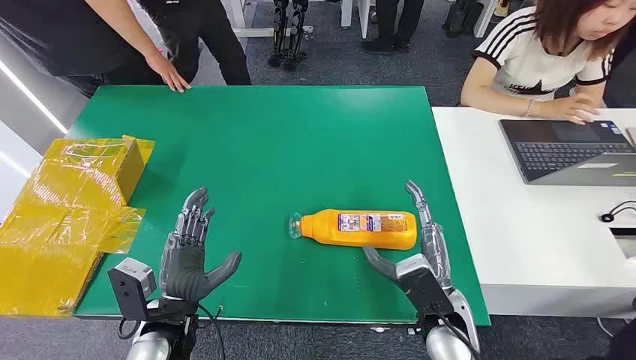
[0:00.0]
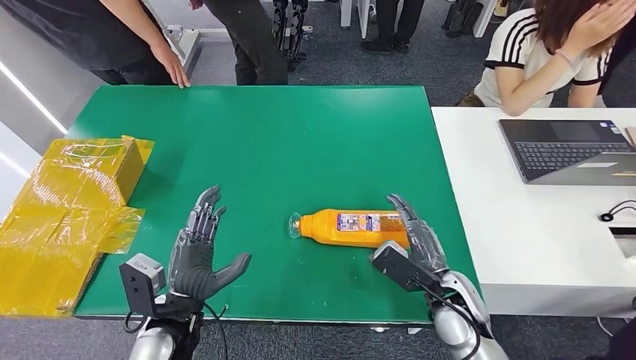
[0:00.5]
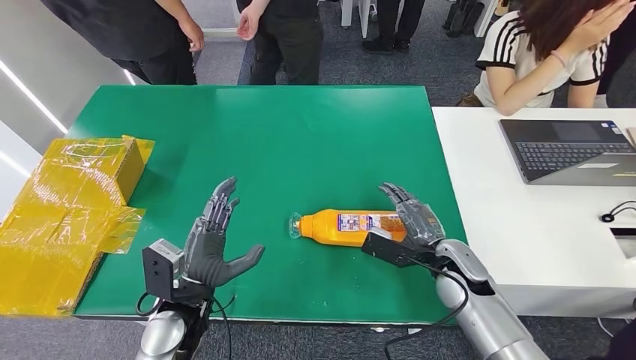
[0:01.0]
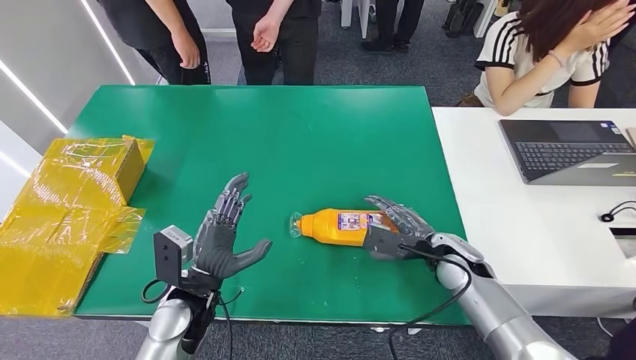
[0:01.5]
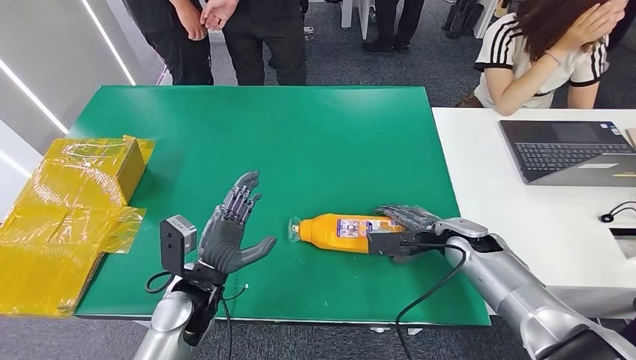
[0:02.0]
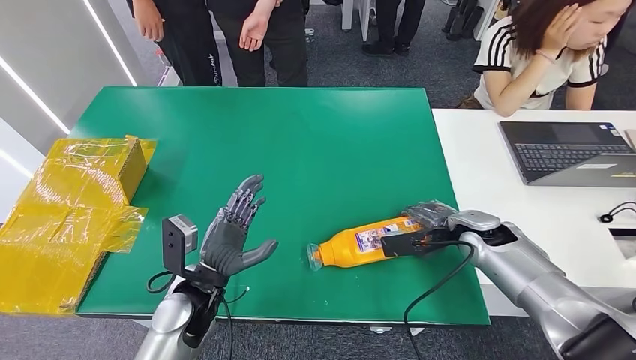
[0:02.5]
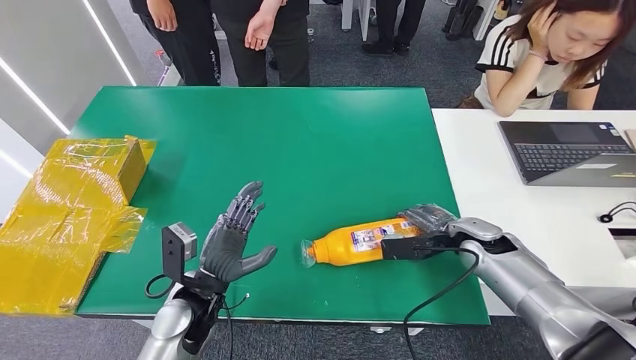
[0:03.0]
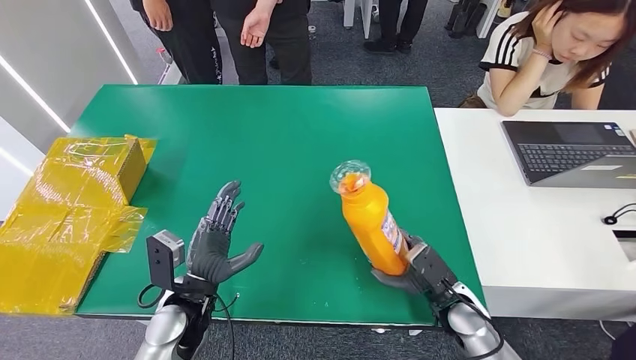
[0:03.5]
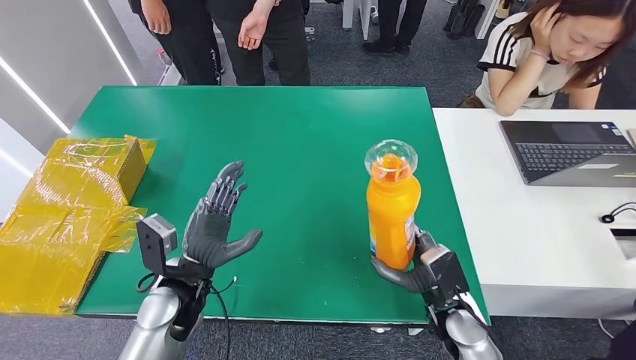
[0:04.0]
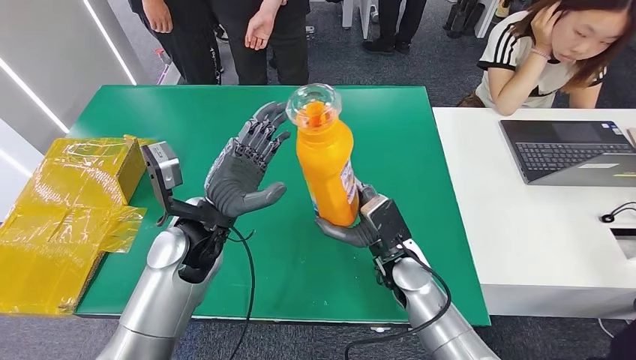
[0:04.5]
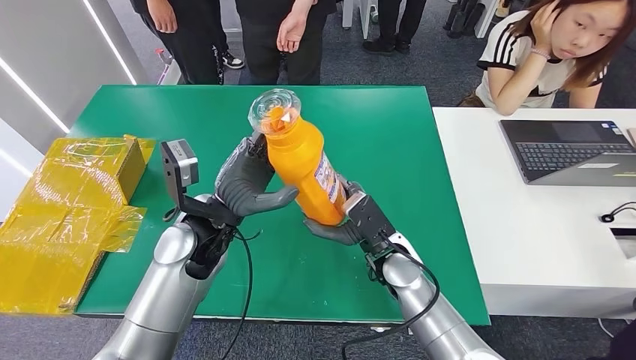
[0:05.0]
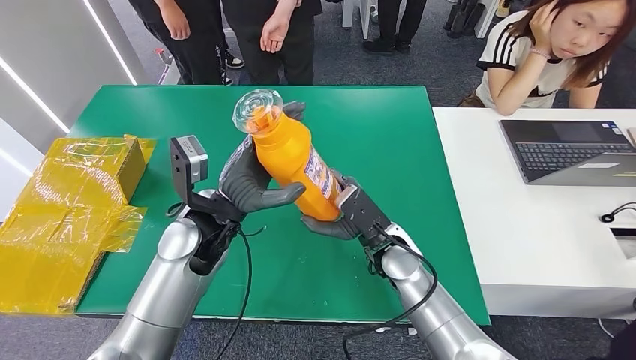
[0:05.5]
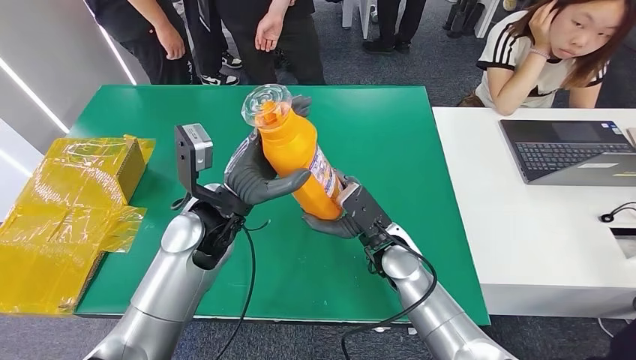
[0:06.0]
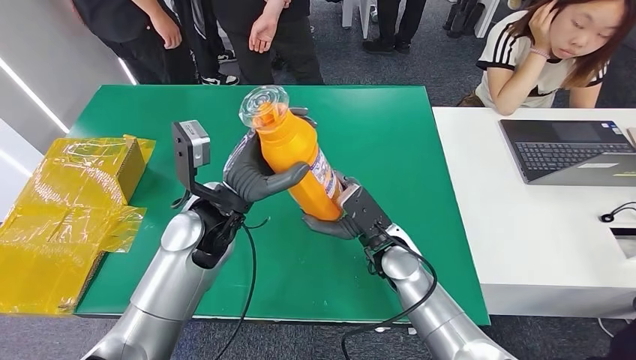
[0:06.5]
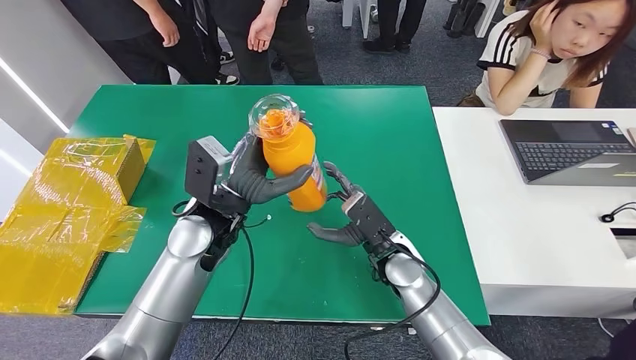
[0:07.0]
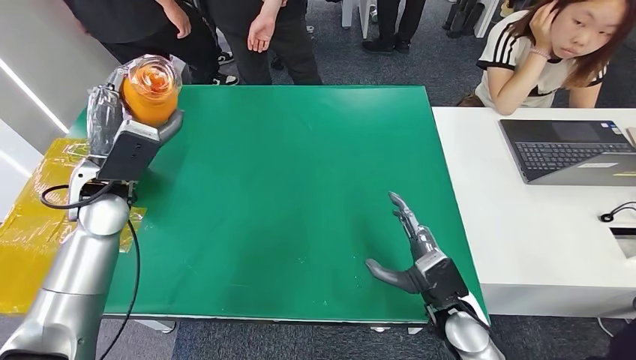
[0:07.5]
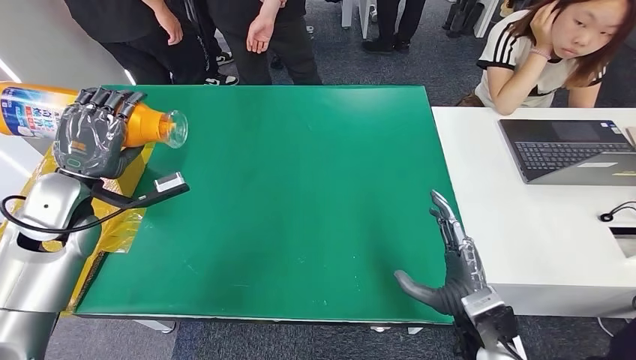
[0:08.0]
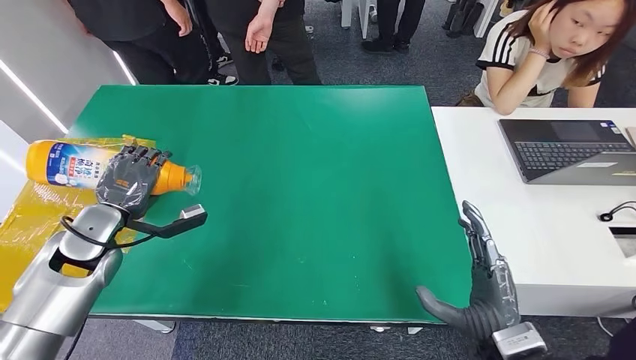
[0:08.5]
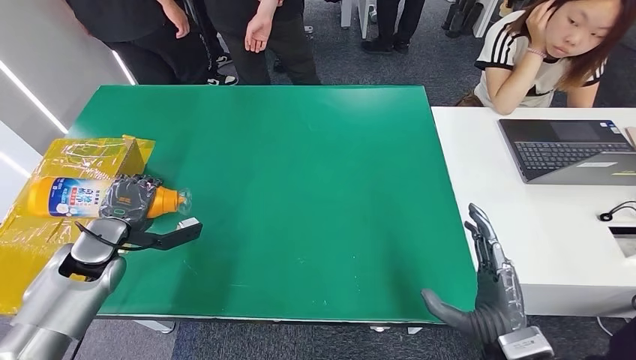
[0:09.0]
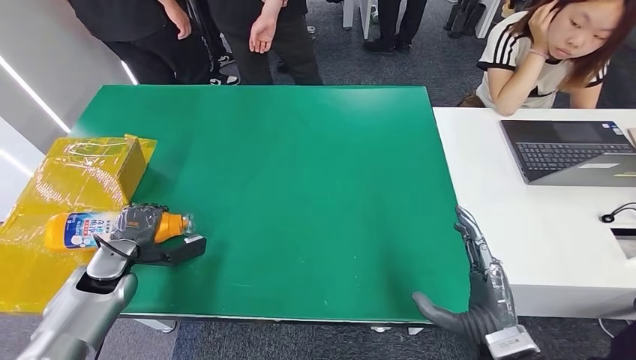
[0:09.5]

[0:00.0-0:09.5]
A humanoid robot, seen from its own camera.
Step, 0:00.0 to 0:05.0: Pick up the bottle from the table.
0:07.5 to 0:09.5: The left hand heads downward, covering some 20 cm. Meanwhile the right hand travels backward by approximately 10 cm.

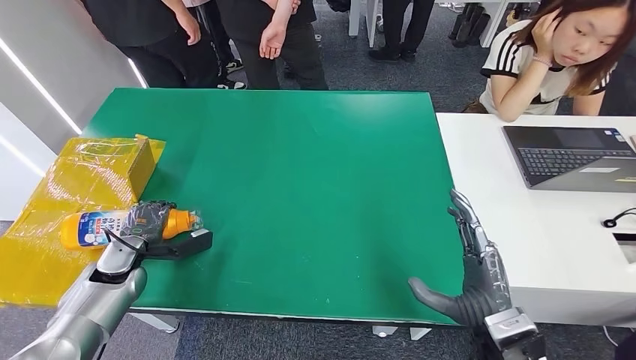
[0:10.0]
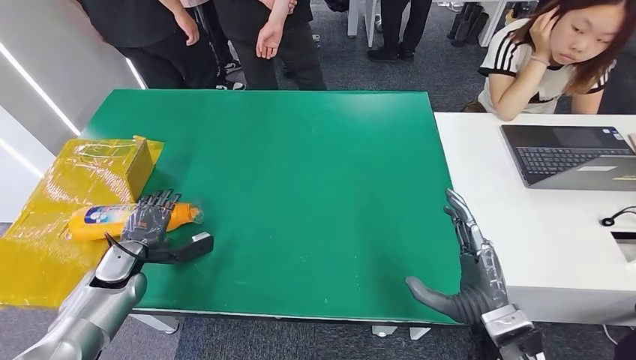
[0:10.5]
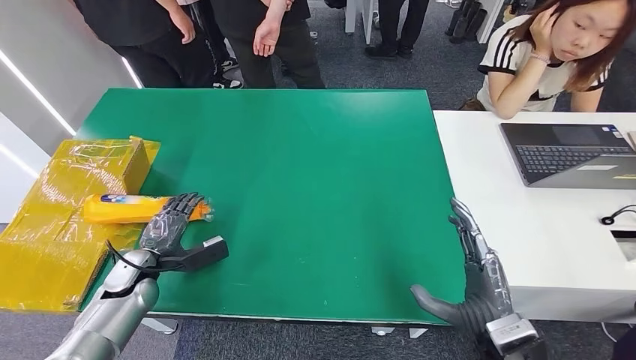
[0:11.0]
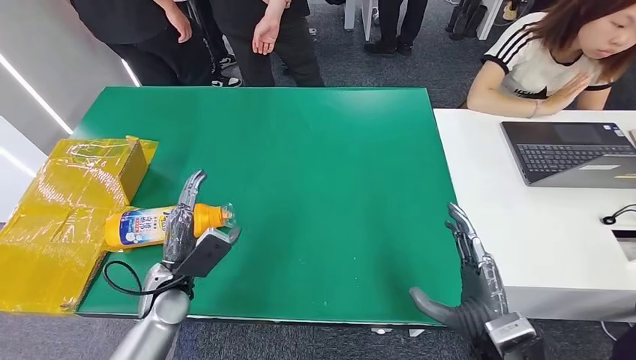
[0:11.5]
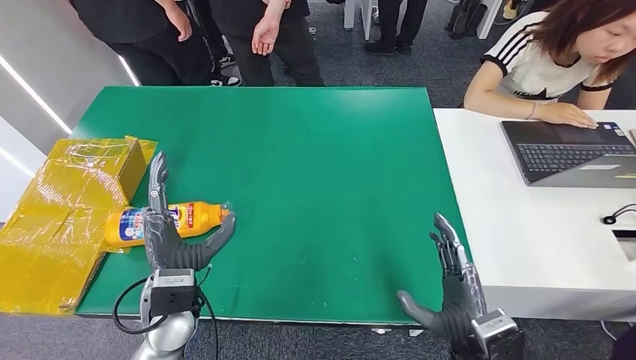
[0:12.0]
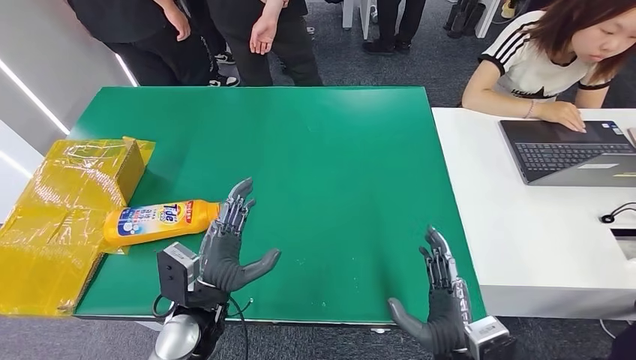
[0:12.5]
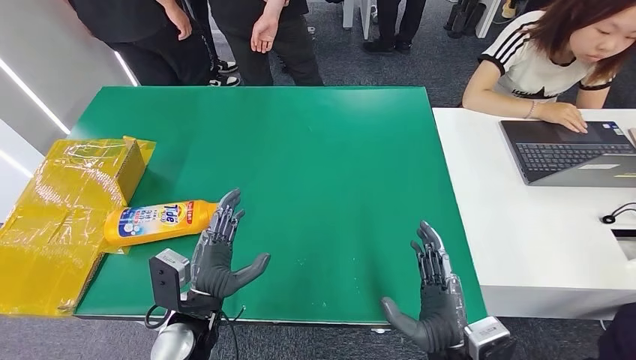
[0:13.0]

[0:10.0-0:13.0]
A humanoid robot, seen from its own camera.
Step, 0:10.0 to 0:13.0: Turn the bottle to the front side.
0:11.5 to 0:13.0: The right hand moves to the left, approximately 5 cm. Meanwhile the left hand shifts approximately 10 cm to the right and backward.

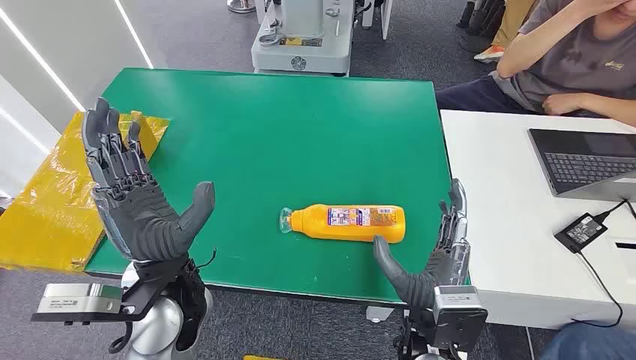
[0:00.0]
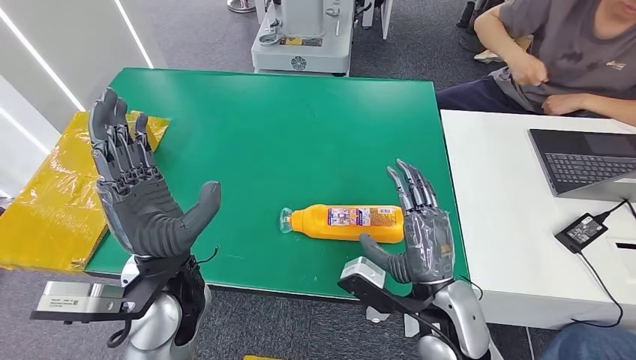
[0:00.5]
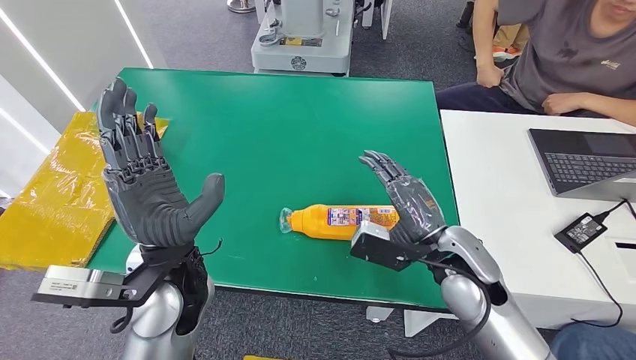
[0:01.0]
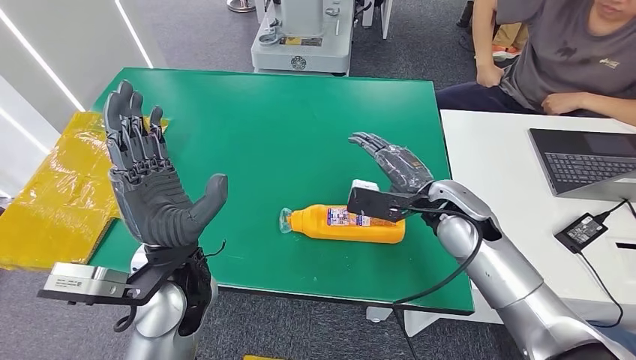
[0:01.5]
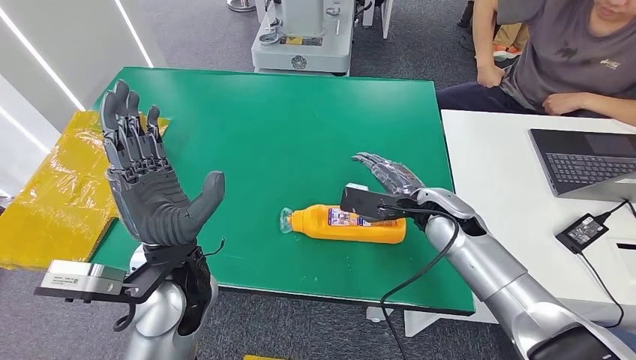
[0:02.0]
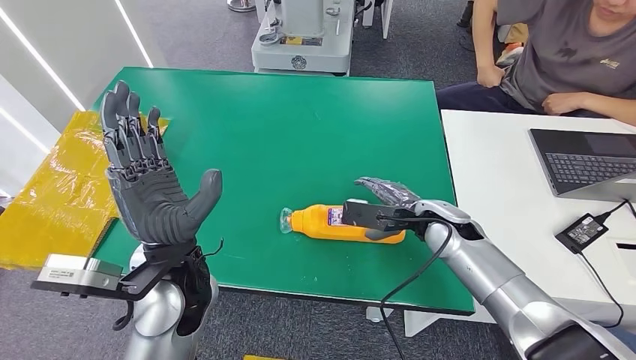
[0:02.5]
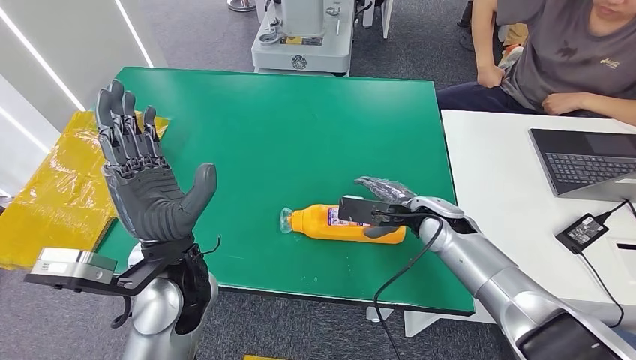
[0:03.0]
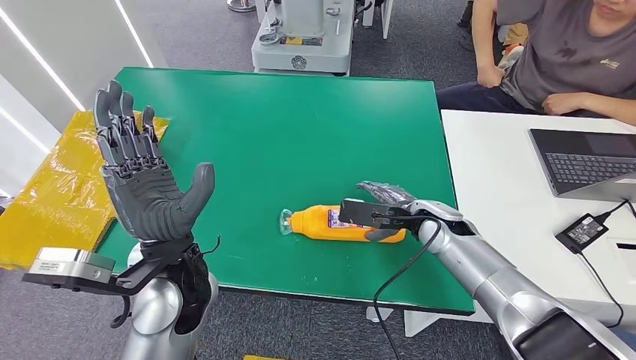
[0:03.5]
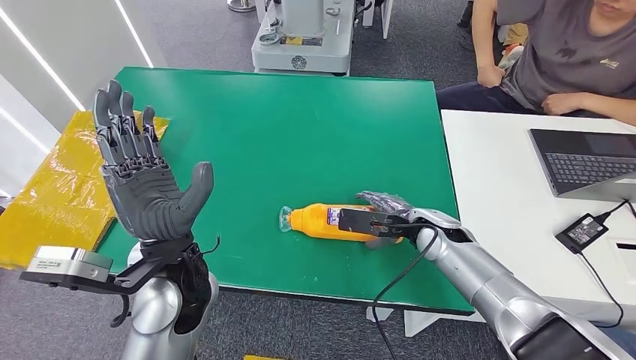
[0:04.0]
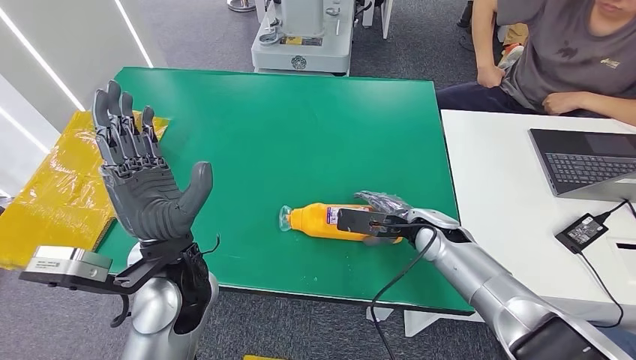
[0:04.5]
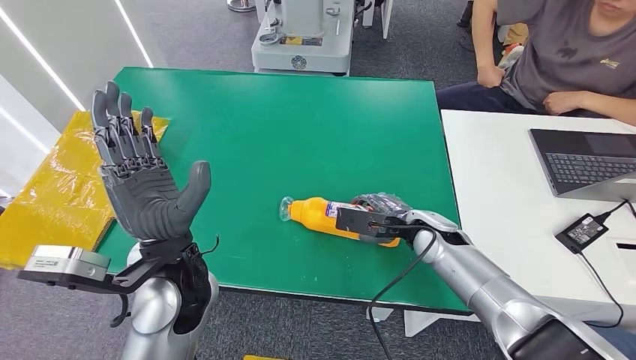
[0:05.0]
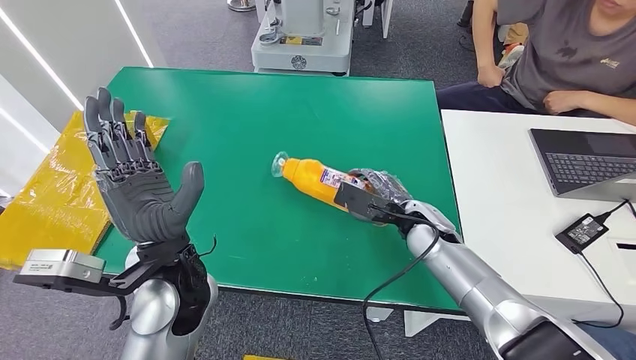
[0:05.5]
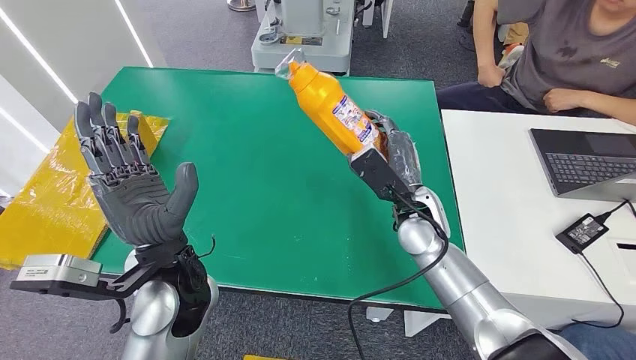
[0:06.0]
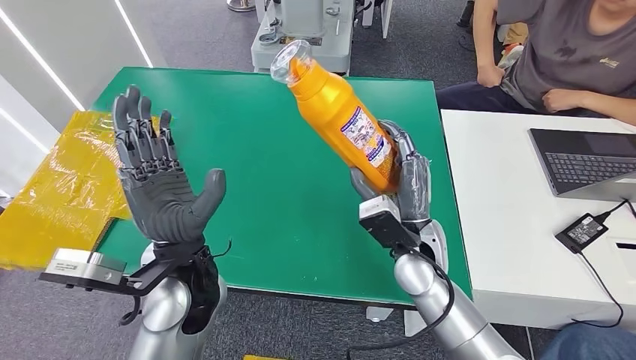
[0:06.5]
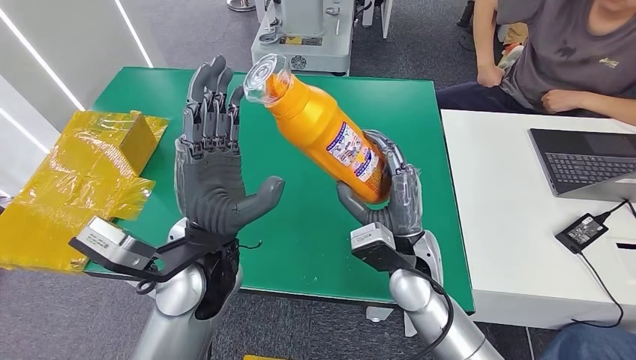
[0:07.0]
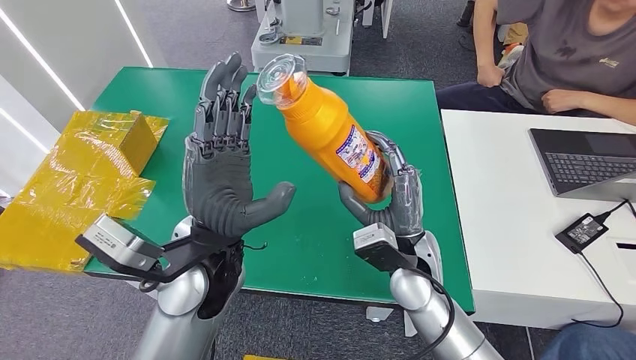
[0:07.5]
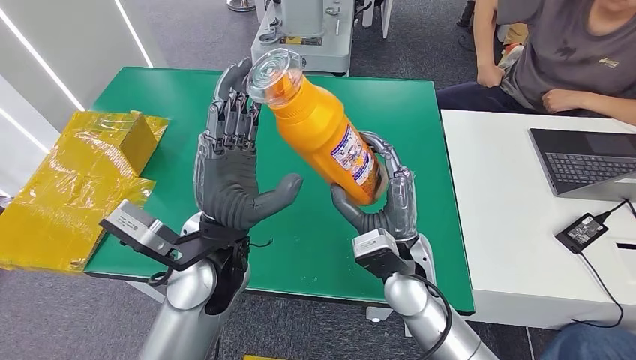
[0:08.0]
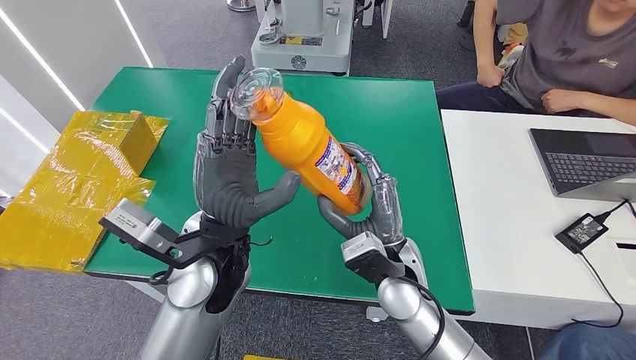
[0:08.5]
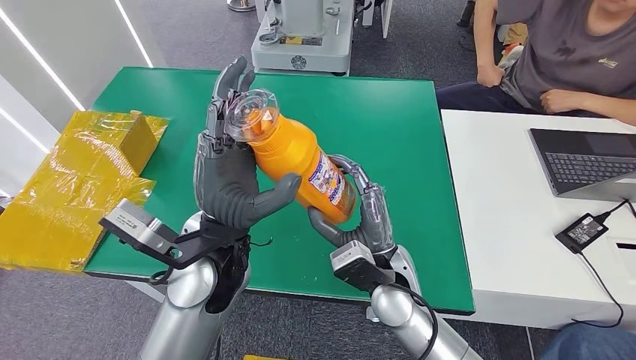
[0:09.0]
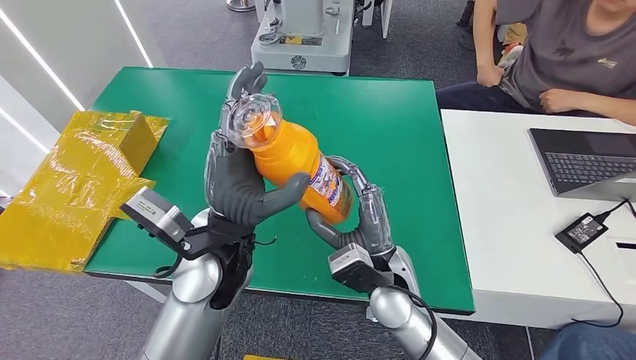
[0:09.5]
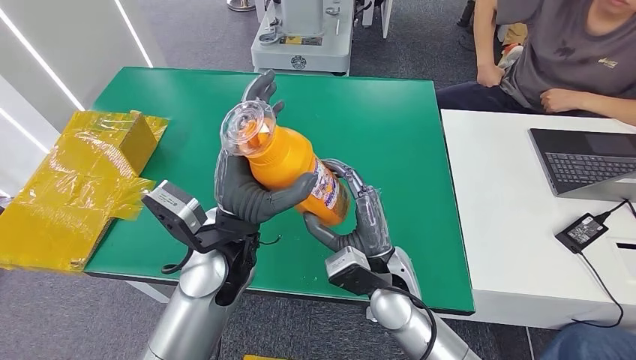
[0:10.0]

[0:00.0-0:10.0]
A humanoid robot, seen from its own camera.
Step, 0:00.0 to 0:06.0: Pick up the bottle from the table.
0:02.0 to 0:04.0: The hands move only a little.
0:04.0 to 0:06.0: The right hand heads to the left, covering about 10 cm.
0:08.0 to 0:10.0: The hands stay close to where they were, moving slightly.
